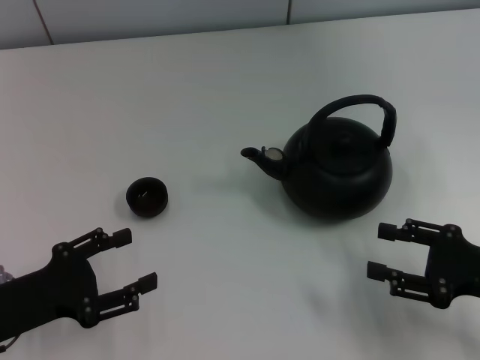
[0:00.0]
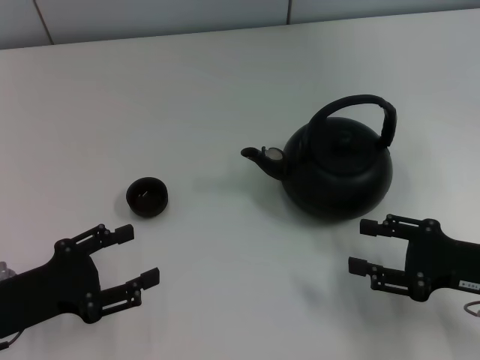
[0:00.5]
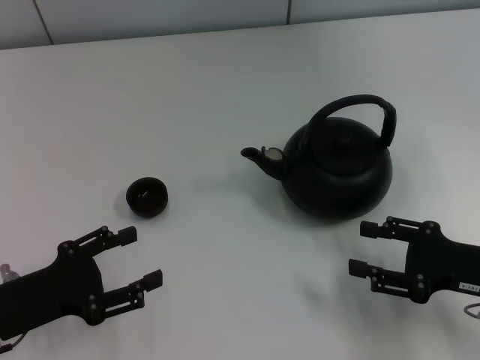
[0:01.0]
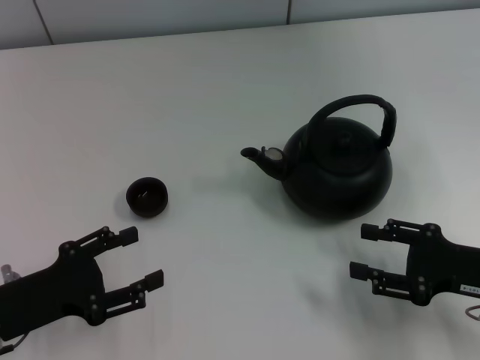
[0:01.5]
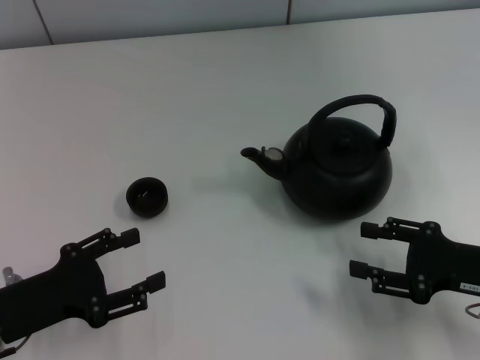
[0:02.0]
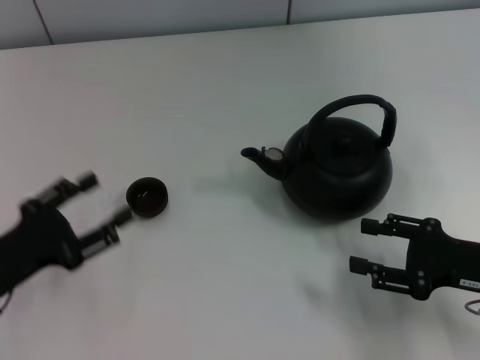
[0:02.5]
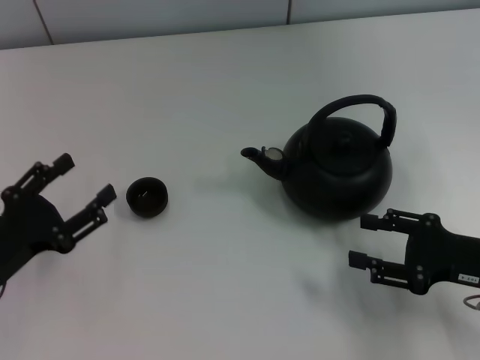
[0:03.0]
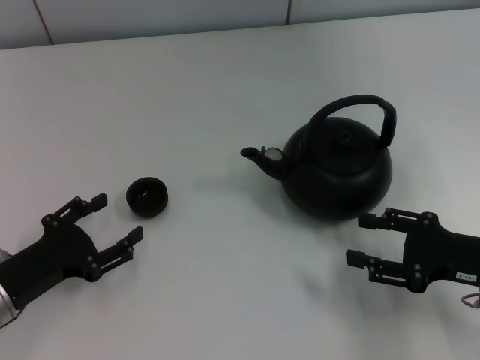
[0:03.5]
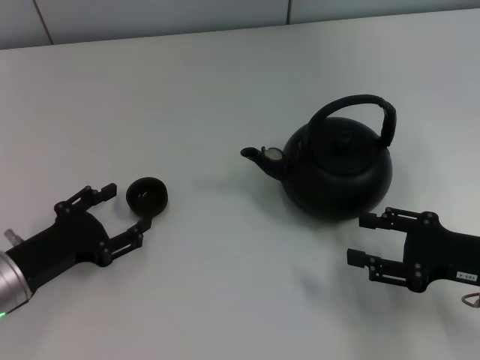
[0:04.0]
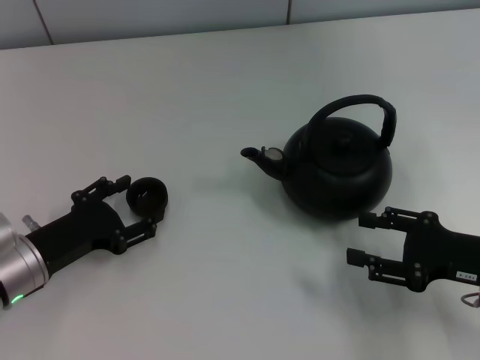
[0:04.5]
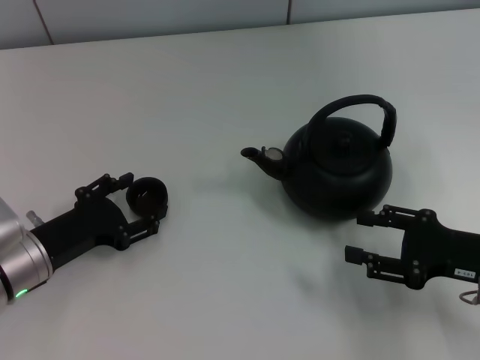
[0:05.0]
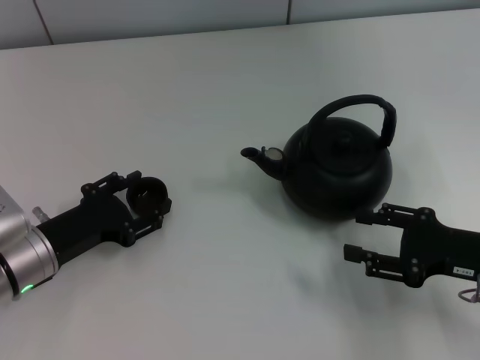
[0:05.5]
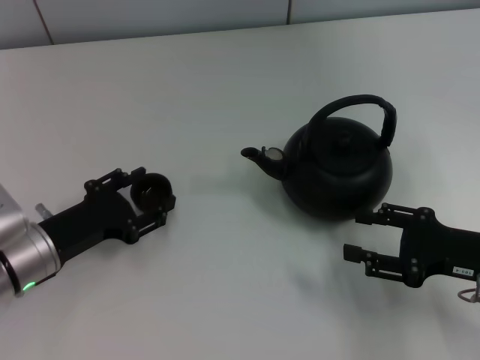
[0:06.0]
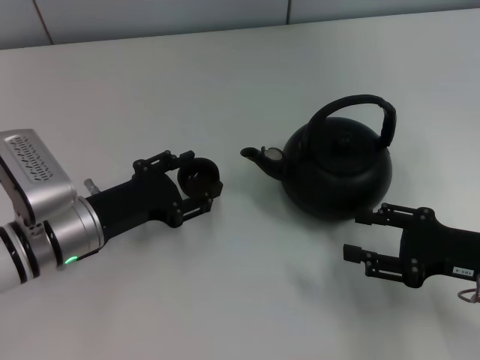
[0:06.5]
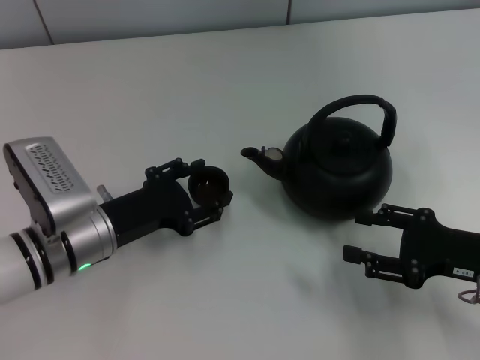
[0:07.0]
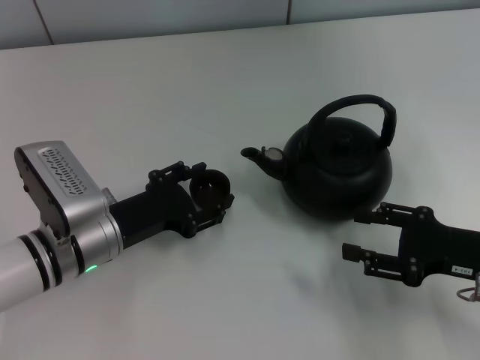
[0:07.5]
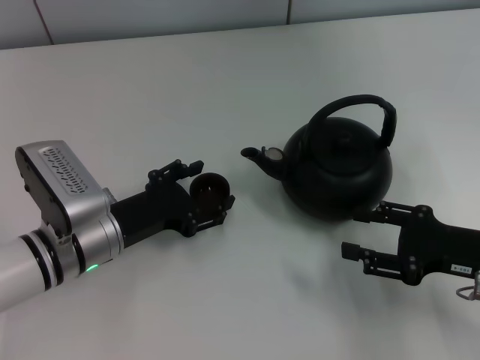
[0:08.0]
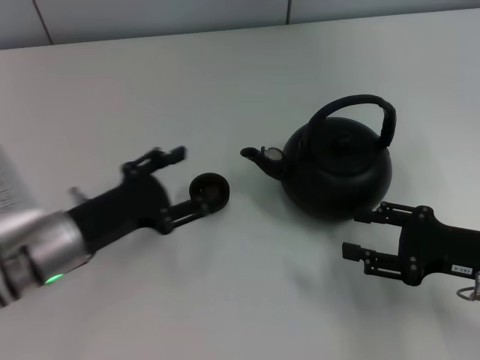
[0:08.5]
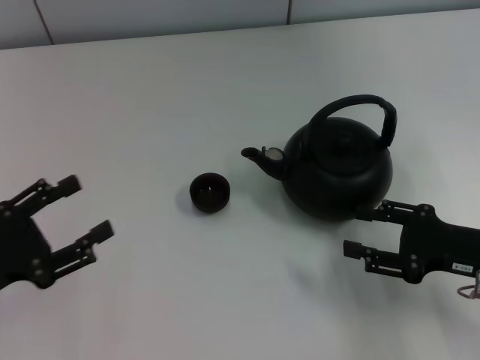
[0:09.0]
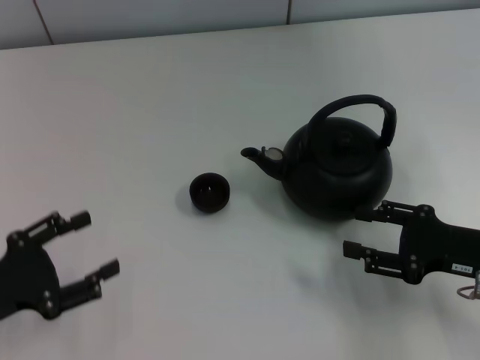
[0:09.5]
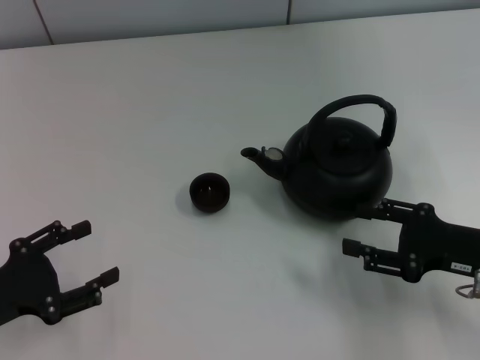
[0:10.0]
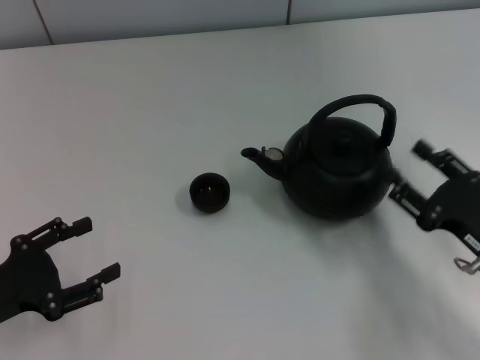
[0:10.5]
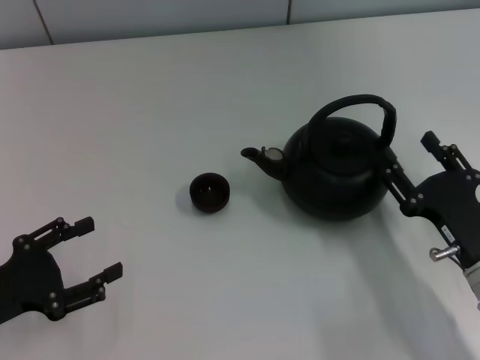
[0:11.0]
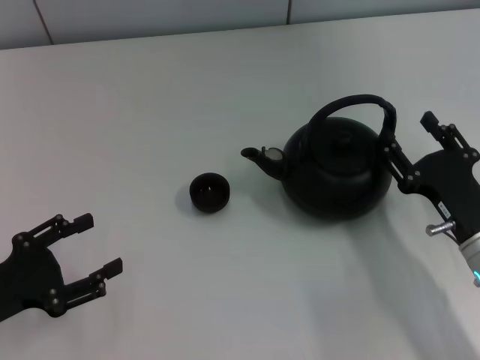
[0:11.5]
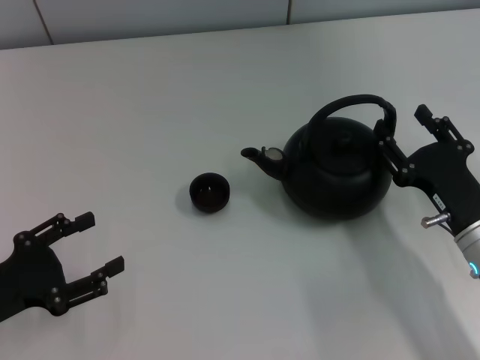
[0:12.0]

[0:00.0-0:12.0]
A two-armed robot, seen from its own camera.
Task of the whole recording: Grasp the handle of the teapot with one hand and pour tea into the teacup.
Step, 0:00.0 to 0:06.0: Pick up the teacup with the left gripper.
Step, 0:06.5 to 0:08.5: Place the teacup in the center of view with the left gripper.
0:00.0 to 0:02.0: There are only small adjustments of the grippers.
0:04.0 to 0:06.0: The grippers stay close to where they were, moving slightly.
0:06.0 to 0:08.0: The left gripper goes some 5 cm to the right.
0:08.0 to 0:10.0: The left gripper is displaced to the left and backward by roughly 15 cm.
0:10.0 to 0:12.0: The right gripper shifts about 5 cm to the left.

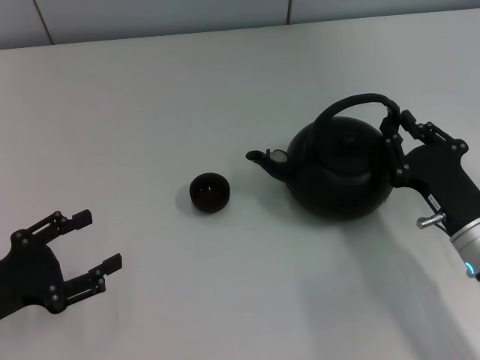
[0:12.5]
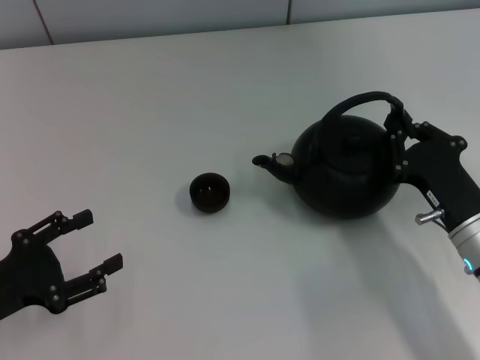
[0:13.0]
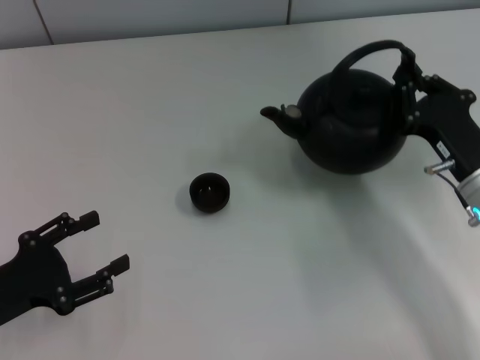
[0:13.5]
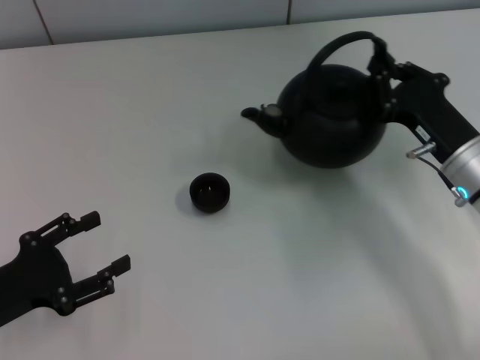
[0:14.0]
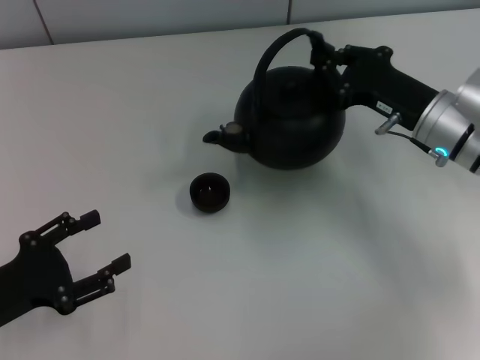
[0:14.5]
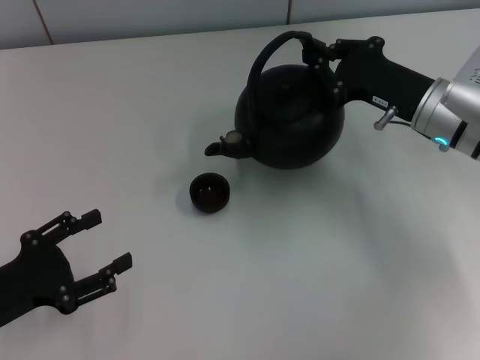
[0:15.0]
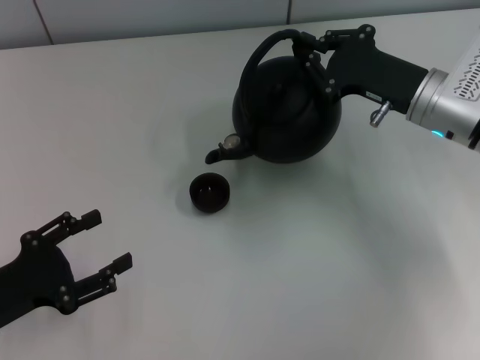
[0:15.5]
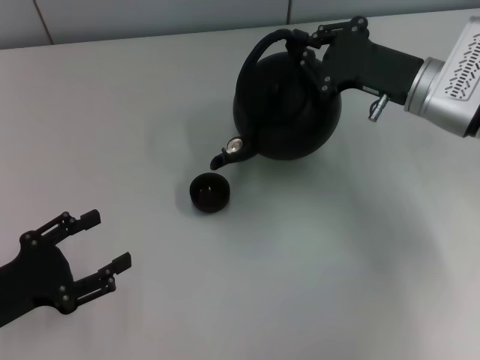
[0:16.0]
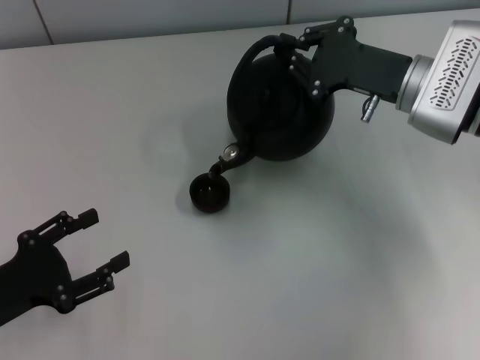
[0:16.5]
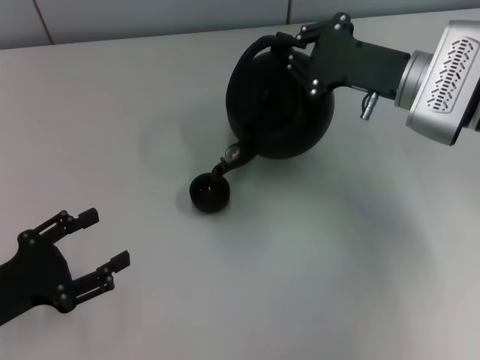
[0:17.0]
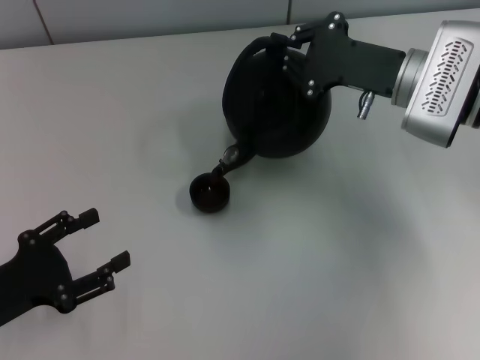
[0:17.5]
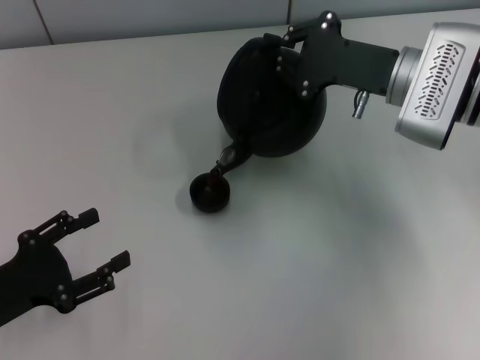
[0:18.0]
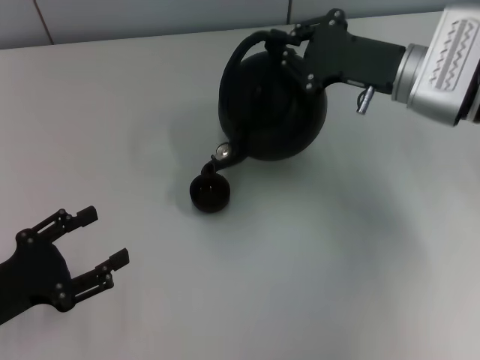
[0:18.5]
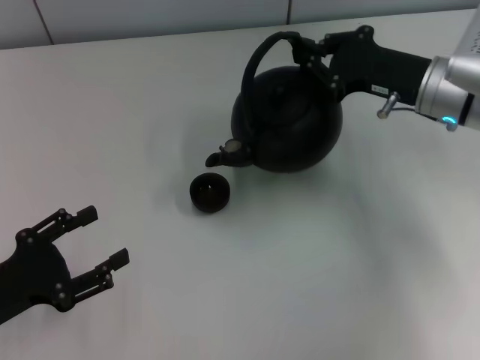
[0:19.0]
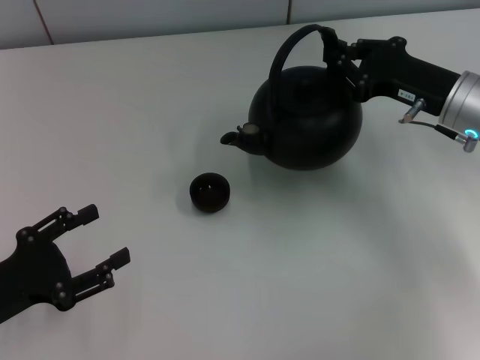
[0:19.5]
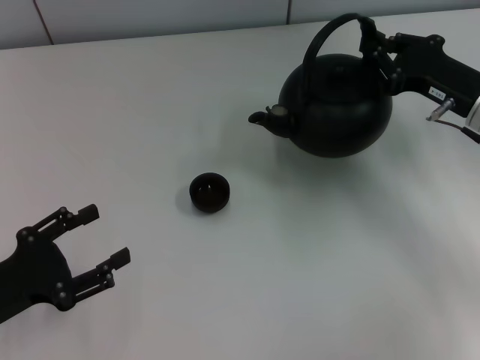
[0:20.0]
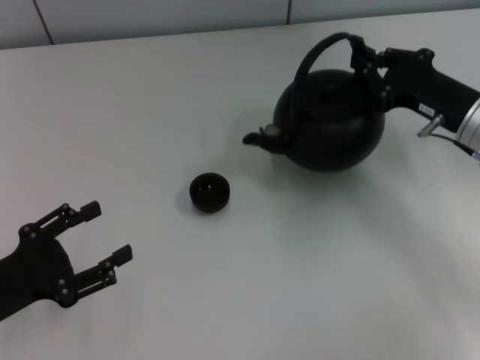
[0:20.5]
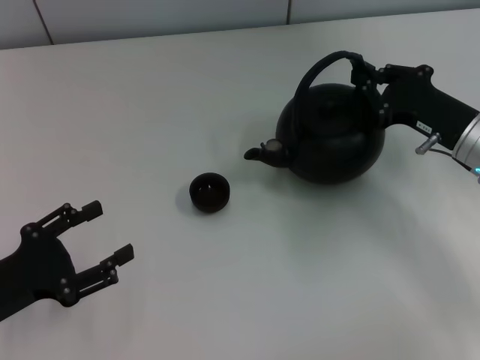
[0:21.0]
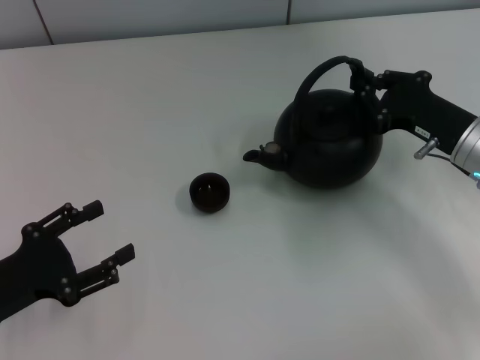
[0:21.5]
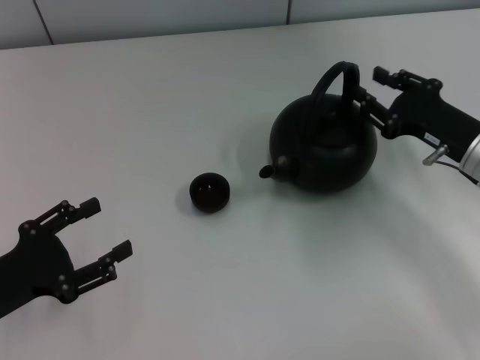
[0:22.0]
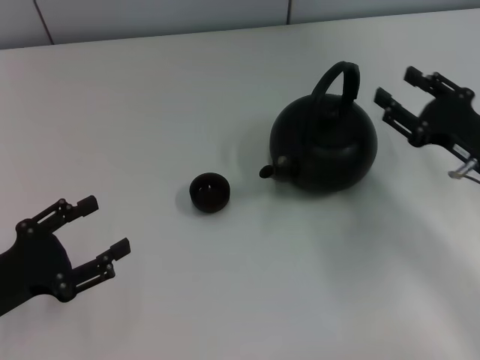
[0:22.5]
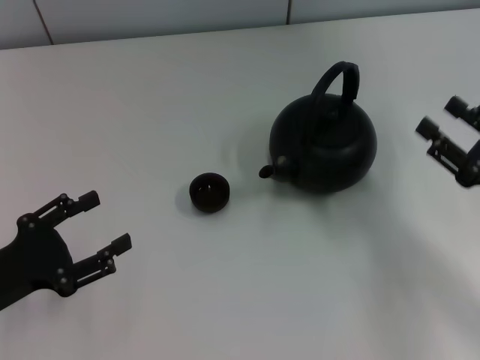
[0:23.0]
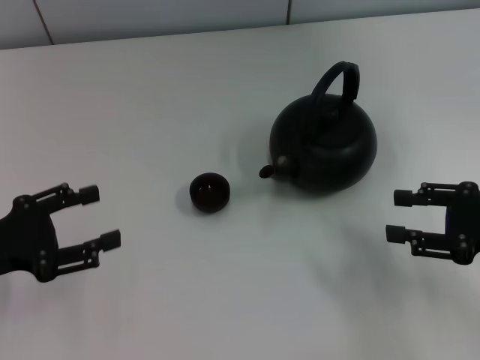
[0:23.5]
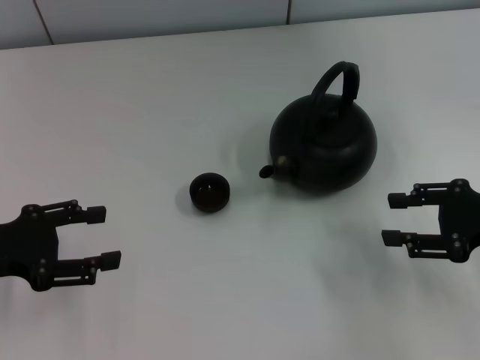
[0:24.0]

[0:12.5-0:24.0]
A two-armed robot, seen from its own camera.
Task of the whole recording: Grasp the handle of the teapot with one hand and pour tea into the teacup.
Step, 0:19.5 to 0:22.0: Put down the teapot with the right gripper.
0:12.5 to 0:14.5: The right gripper heads forward and upward, covering approximately 15 cm, and closes.
0:16.5 to 0:18.5: The grippers stay close to where they were, moving slightly.
0:18.5 to 0:20.0: The right gripper is displaced to the right by roughly 5 cm.
0:20.0 to 0:22.0: There are only small adjustments of the grippers.
0:22.0 to 0:24.0: The right gripper shifts about 5 cm backward, and opens its fingers. Meanwhile the left gripper shifts about 5 cm forward.

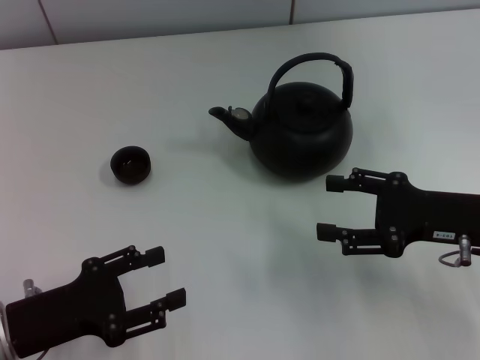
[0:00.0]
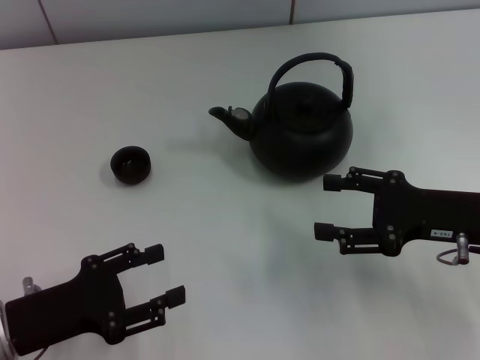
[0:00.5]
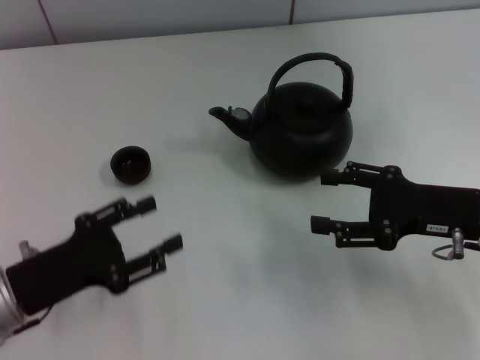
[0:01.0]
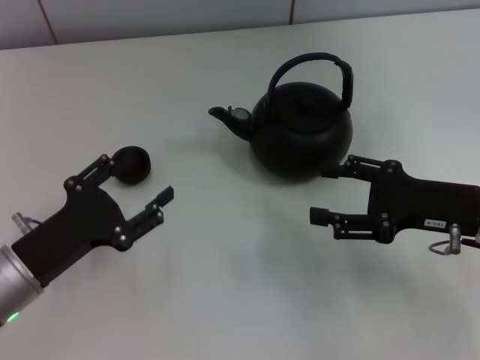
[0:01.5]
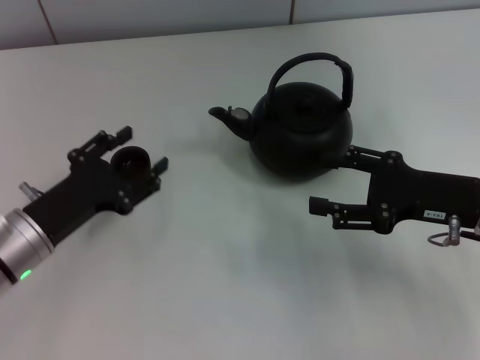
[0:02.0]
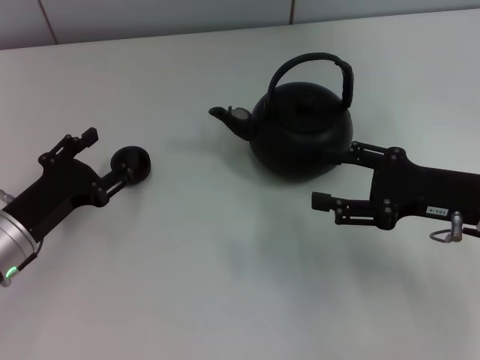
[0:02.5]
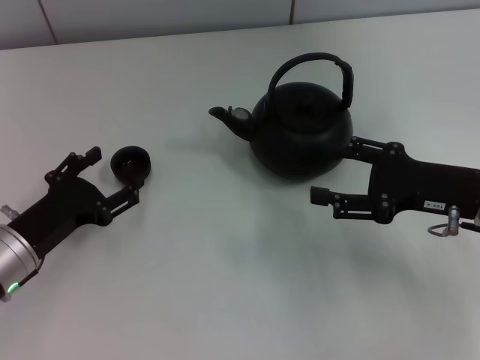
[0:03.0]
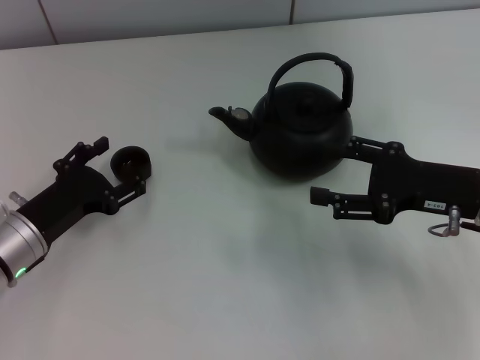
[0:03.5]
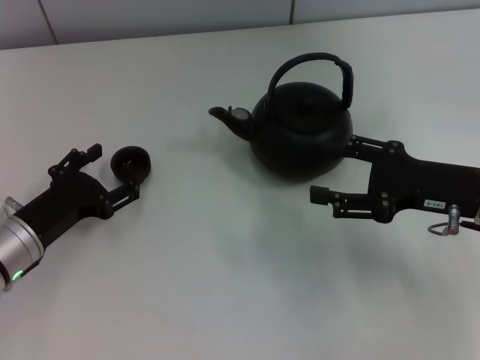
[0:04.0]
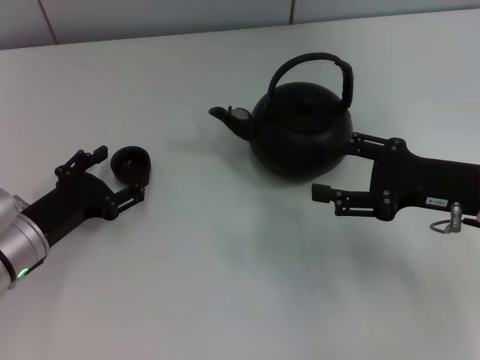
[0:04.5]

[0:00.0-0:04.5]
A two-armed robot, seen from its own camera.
Task of the whole recording: Grasp the handle of the teapot with one hand and pour tea into the teacup.
0:00.0 to 0:02.0: The left gripper moves forward, about 10 cm.
0:02.0 to 0:04.5: The left gripper opens.
